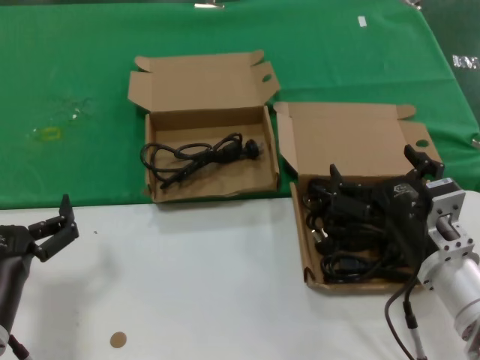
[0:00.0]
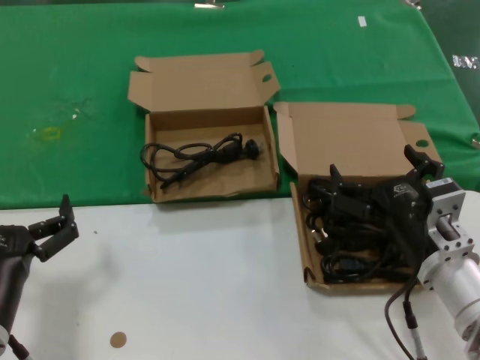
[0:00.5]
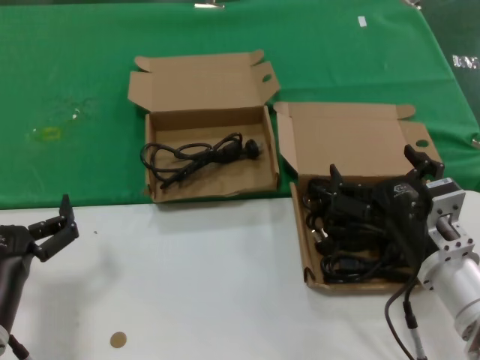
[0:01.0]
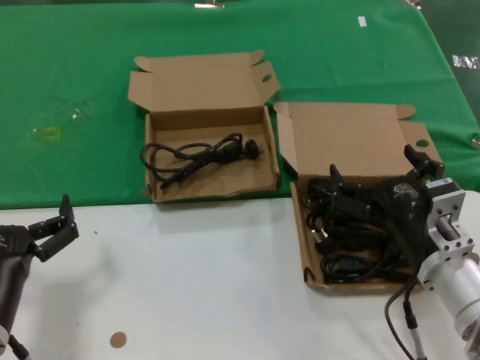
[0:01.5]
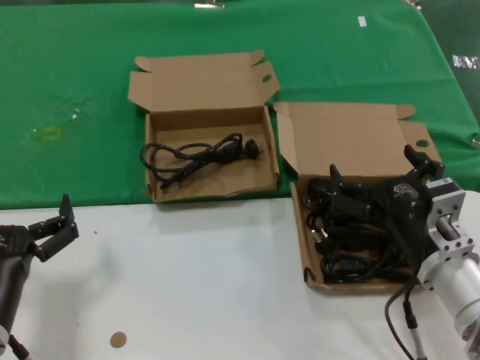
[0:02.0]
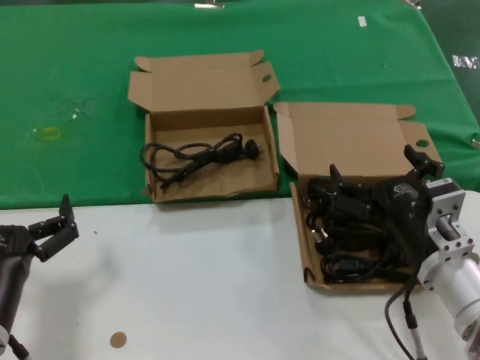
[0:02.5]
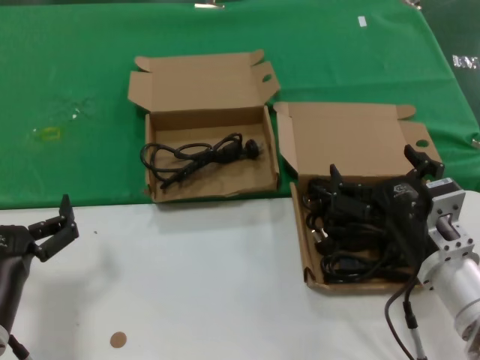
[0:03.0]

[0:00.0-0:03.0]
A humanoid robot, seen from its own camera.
Task of the whole recording: take the parts from the box containing them and put them into an empty box.
0.0 to 3.0 s: Neither hand changes place.

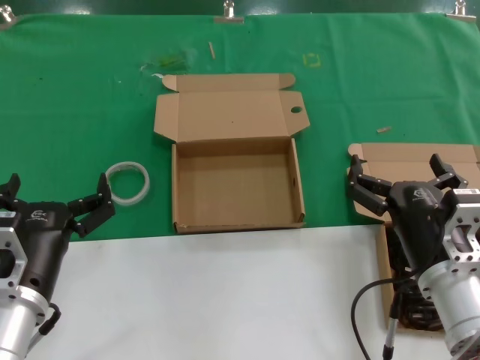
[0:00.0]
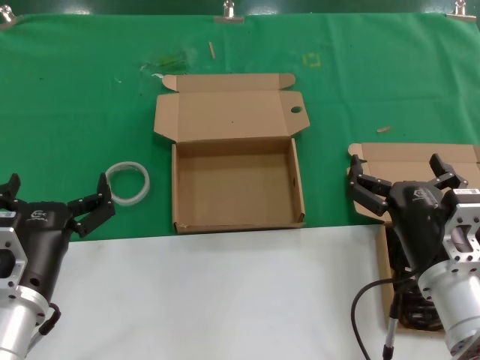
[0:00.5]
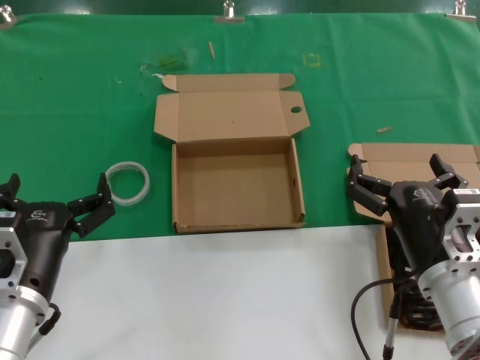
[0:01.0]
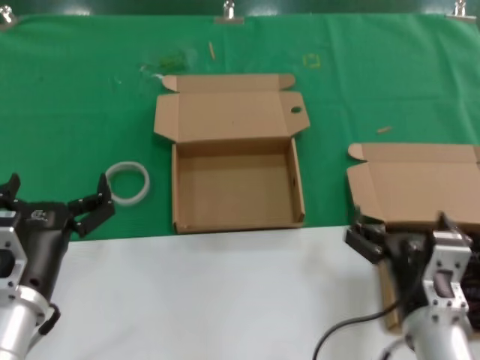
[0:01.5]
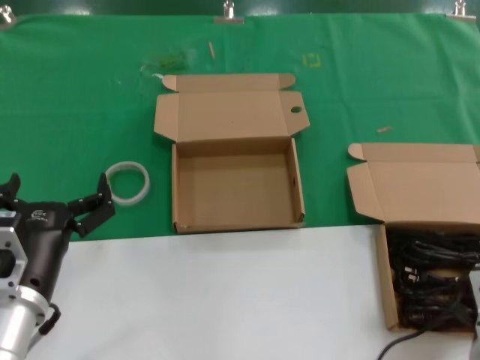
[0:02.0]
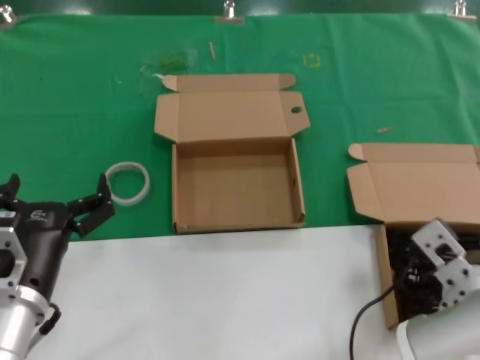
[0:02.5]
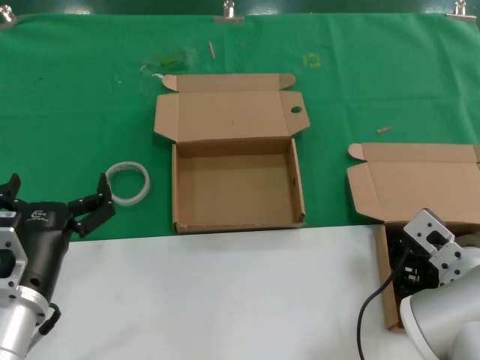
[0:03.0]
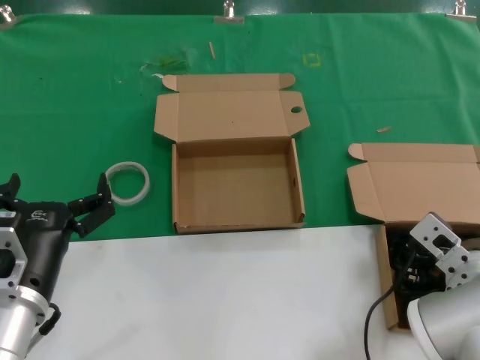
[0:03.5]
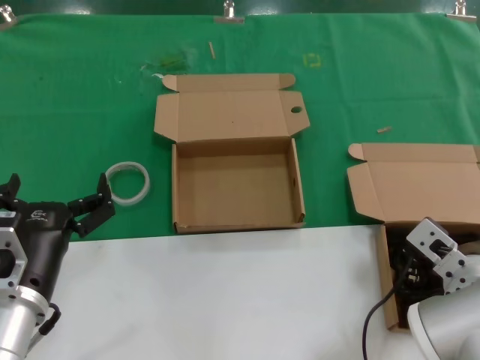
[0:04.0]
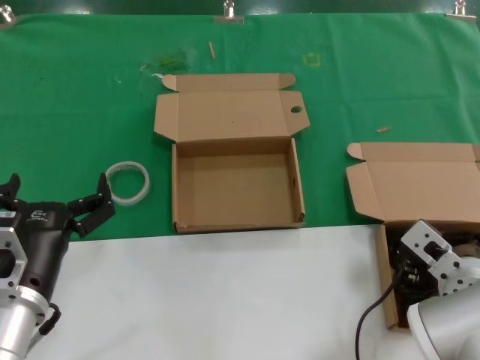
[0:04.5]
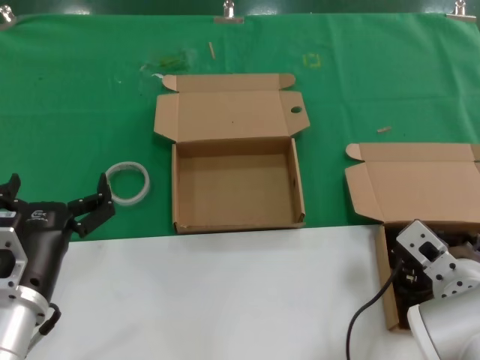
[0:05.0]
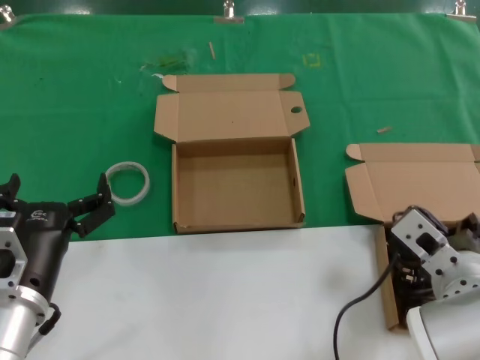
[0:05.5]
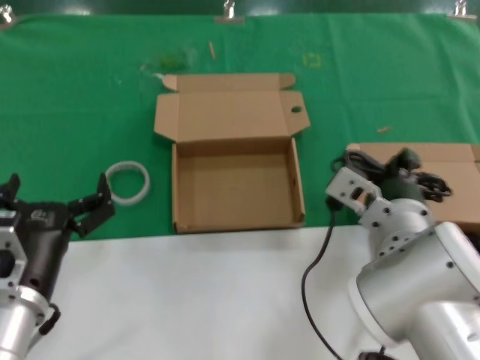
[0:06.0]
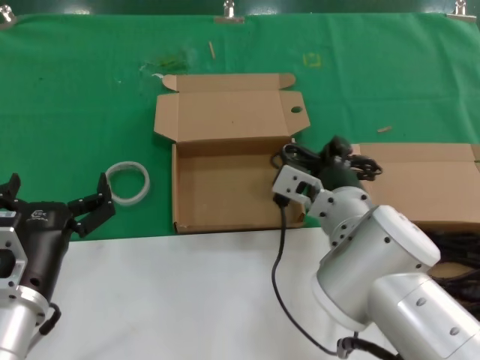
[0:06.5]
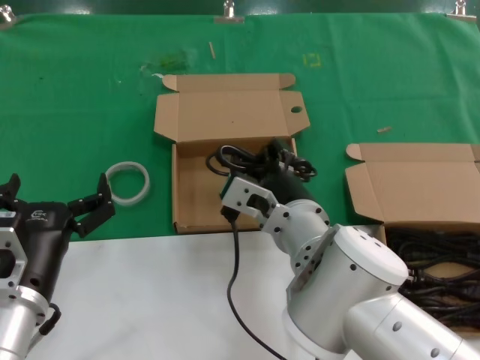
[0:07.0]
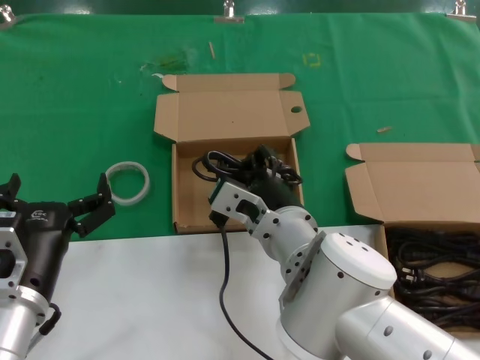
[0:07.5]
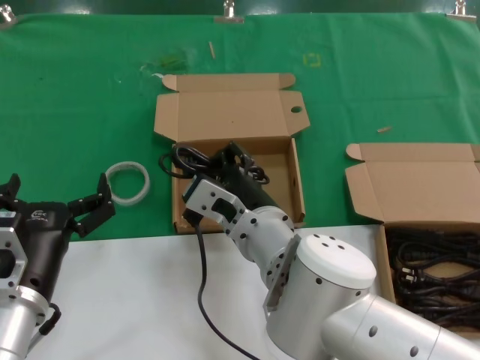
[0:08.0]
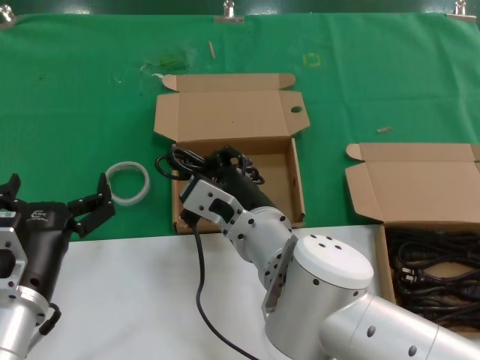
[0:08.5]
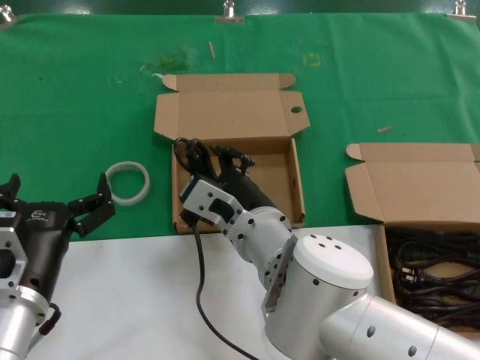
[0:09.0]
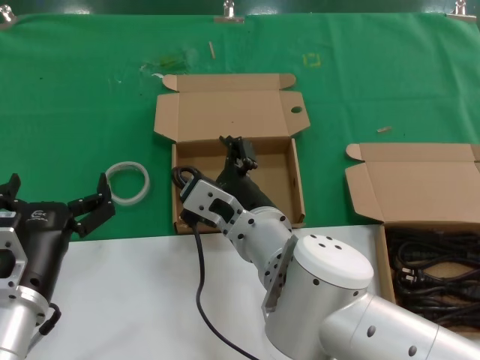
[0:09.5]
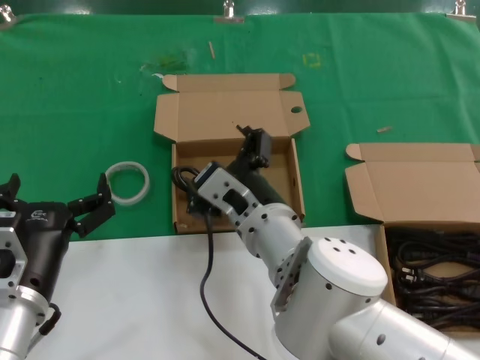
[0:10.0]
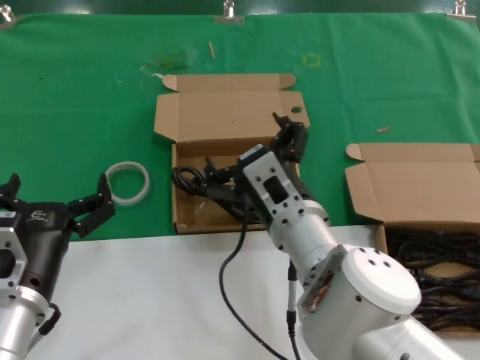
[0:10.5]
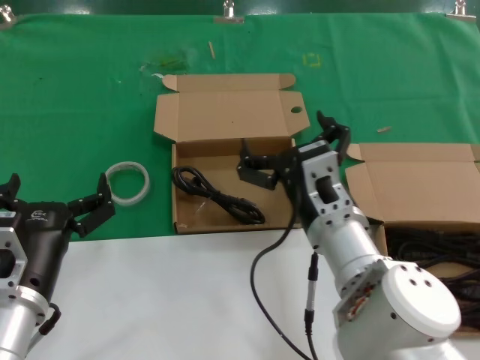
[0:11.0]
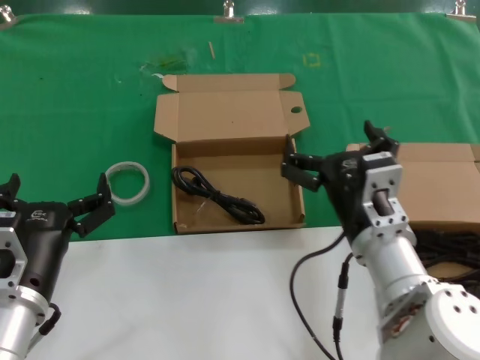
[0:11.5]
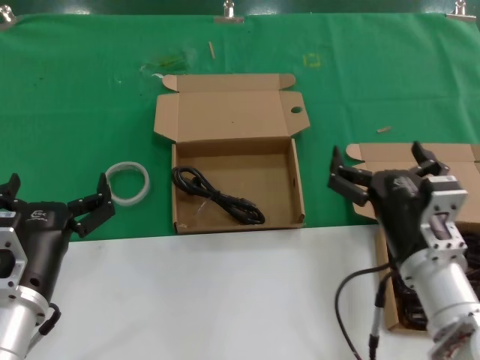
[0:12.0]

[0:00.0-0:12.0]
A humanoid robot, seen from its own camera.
Task of the whole recording: take the parts from the box containing them and put them into an empty box.
Step, 0.0 to 5.0 s: Grasp the data cable.
Step, 5.5 to 9.0 s: Place the data cable in the another box.
0.0 to 2.0 s: The right hand shifts about 5 cm backward.
2.0 to 4.0 s: The right hand travels forward by approximately 10 cm.
4.0 to 6.0 s: The right hand goes about 10 cm to the left and upward.
6.0 to 8.0 s: The right hand goes about 15 cm to the left.
8.0 to 10.0 s: The hands stay close to where they were, moving slightly.
10.0 to 12.0 s: The right hand is displaced to the right by some 15 cm.

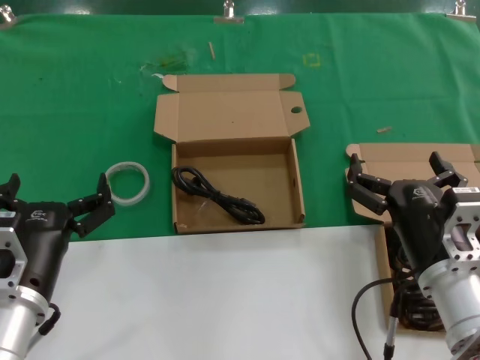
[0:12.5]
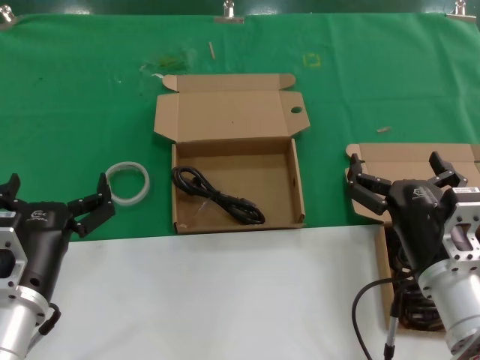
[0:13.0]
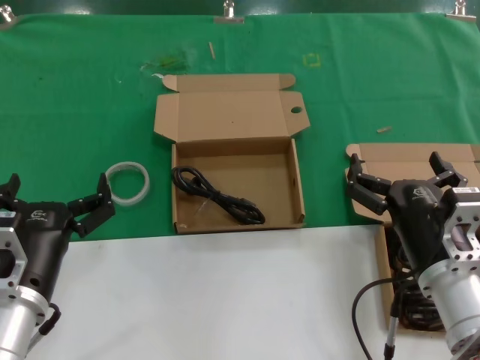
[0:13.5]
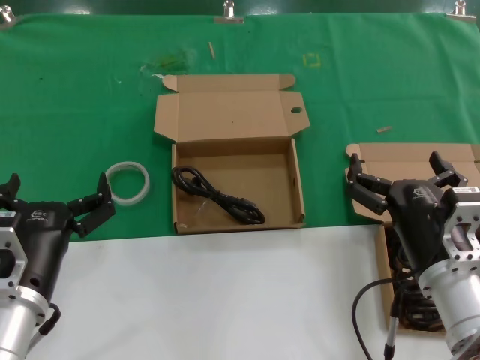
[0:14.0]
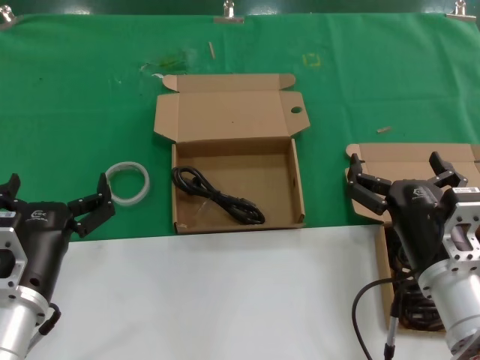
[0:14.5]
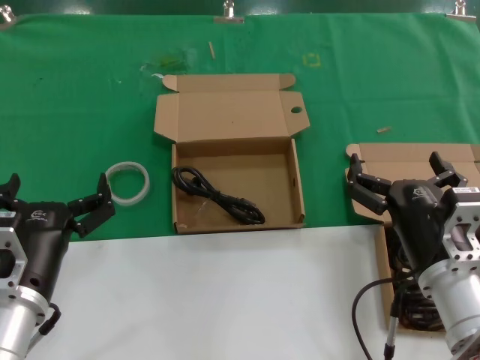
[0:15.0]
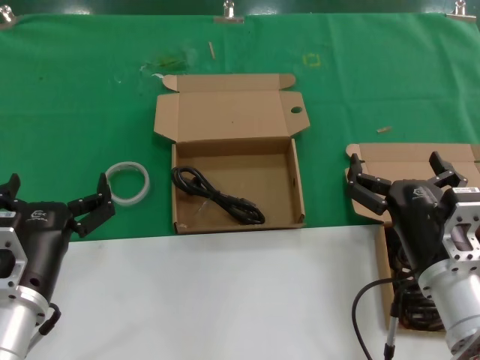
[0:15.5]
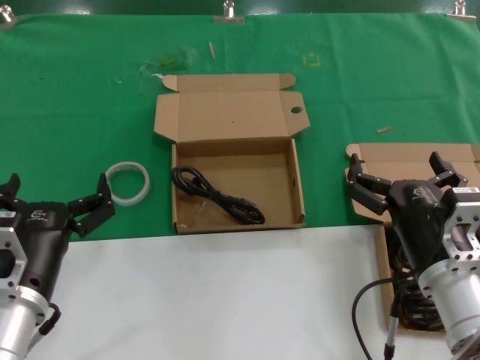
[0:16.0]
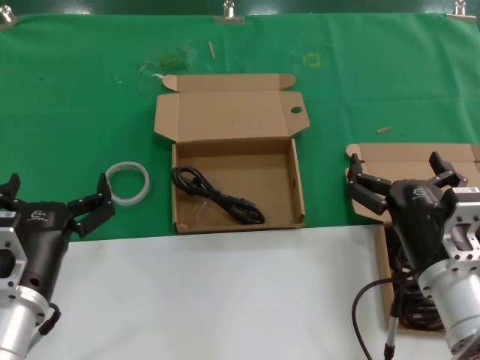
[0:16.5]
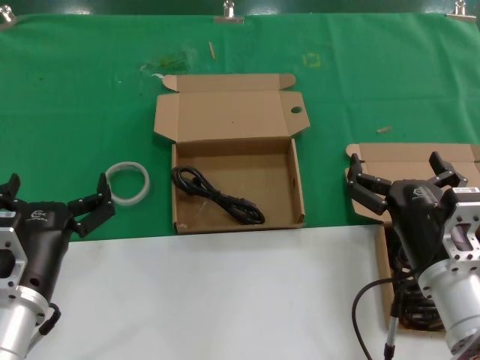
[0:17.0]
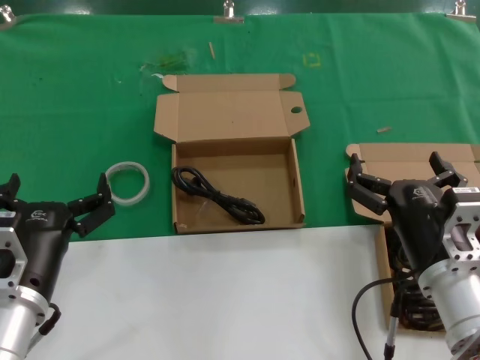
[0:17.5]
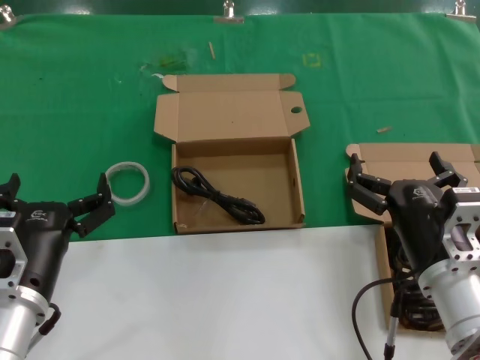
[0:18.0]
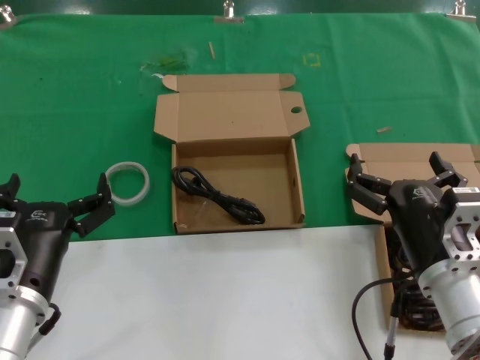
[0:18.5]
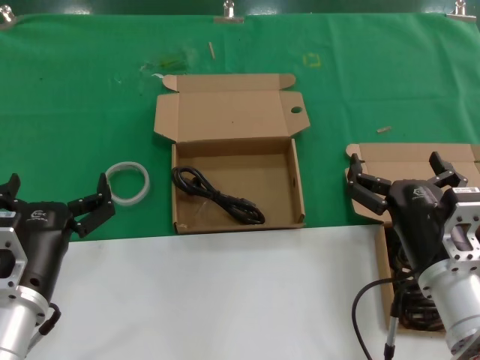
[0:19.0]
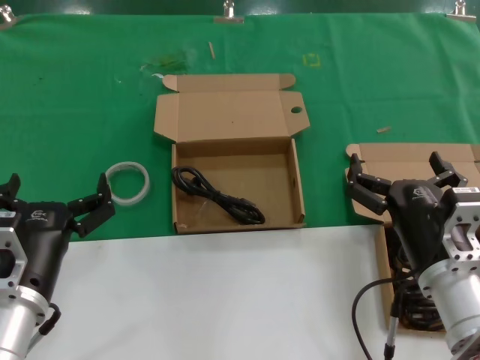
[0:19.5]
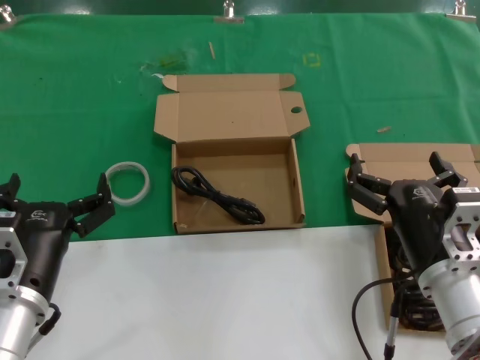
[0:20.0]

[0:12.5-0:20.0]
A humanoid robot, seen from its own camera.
Task of the whole recording: take the parts from the box containing them and put them into an empty box.
12.5 to 20.0 s: Both hands stay about where they are.

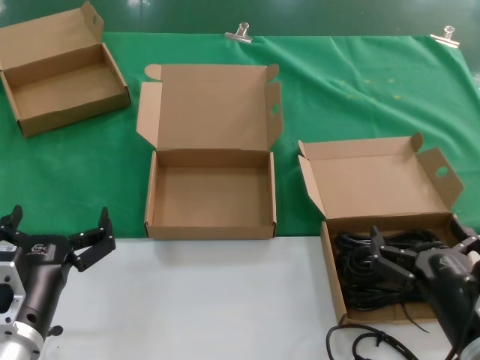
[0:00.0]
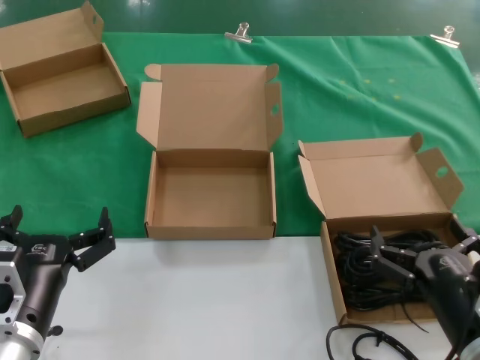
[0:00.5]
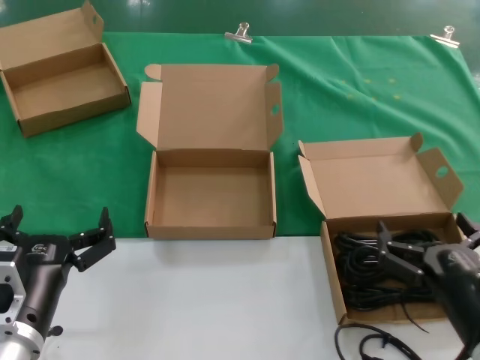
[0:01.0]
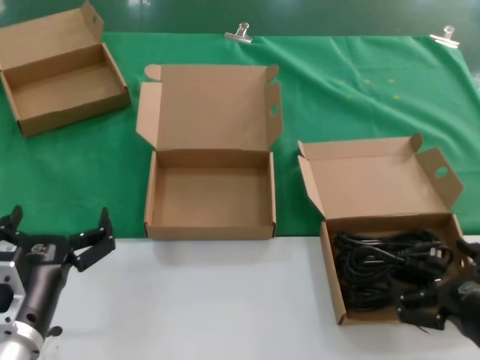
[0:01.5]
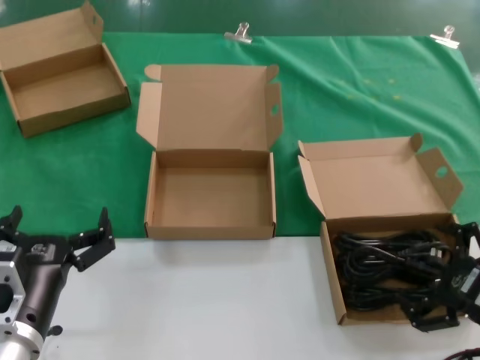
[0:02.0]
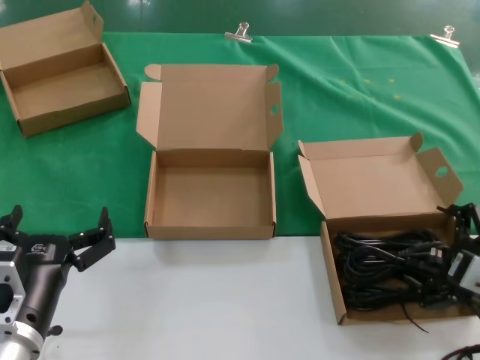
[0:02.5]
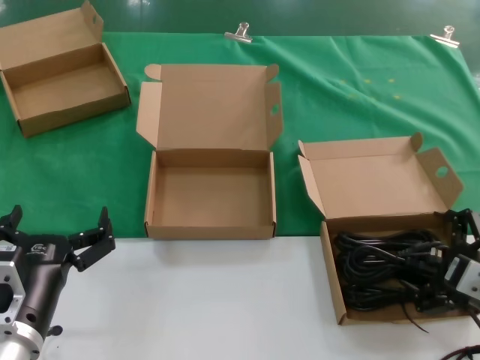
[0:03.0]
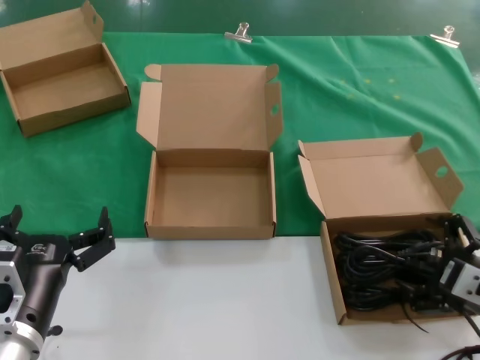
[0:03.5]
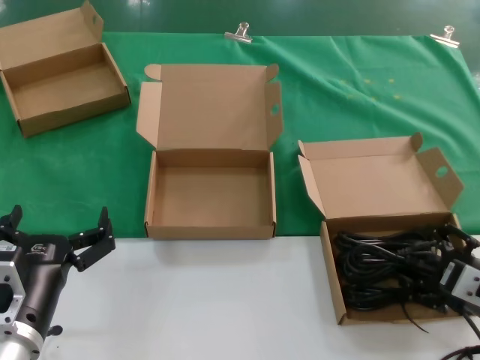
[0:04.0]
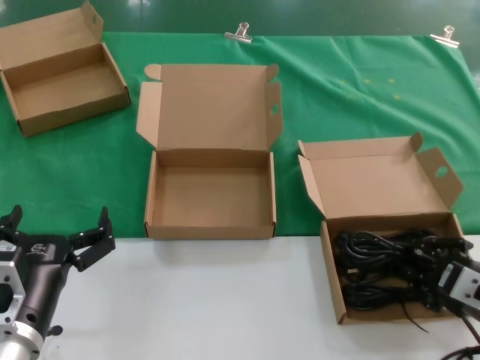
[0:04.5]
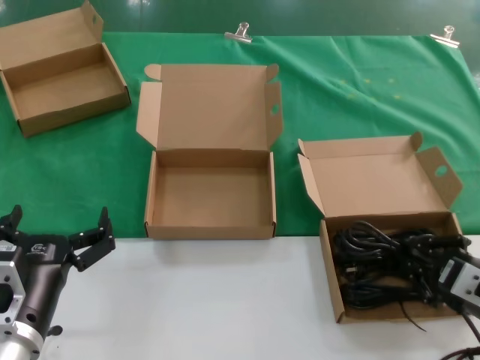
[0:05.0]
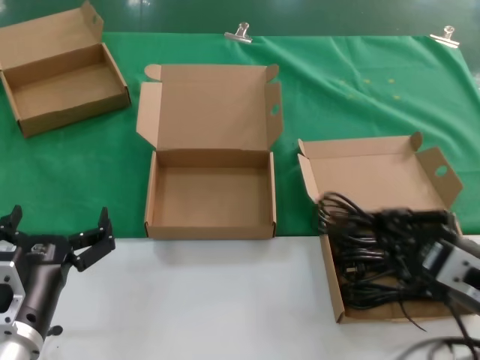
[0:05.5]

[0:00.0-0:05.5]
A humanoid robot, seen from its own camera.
Task of the whole recording: take the parts from the box containing them and put them into an empty box.
Step, 0.0 to 4.5 s: Grasp the data cable.
0.0 to 2.0 s: The right hand shifts some 10 cm to the right and upward.
2.0 to 3.5 s: The hands stay close to where they were, moving slightly.
3.5 to 5.5 s: The right hand moves approximately 10 cm.
